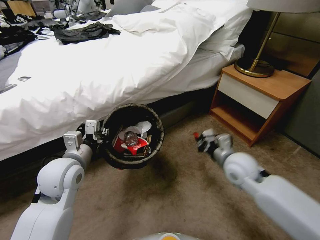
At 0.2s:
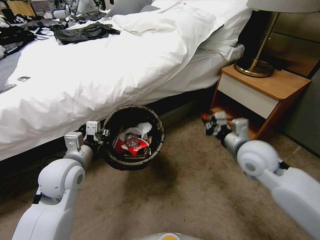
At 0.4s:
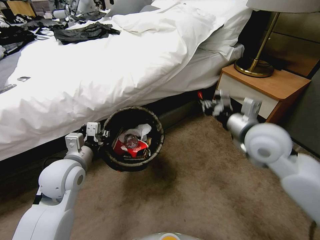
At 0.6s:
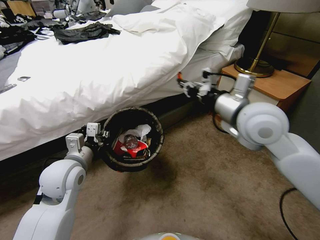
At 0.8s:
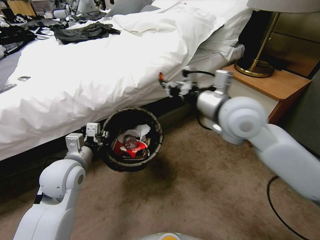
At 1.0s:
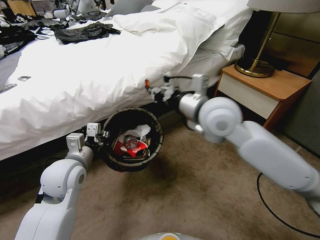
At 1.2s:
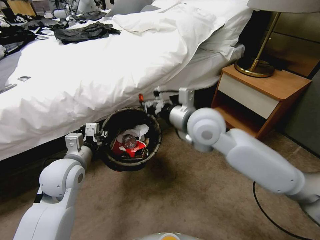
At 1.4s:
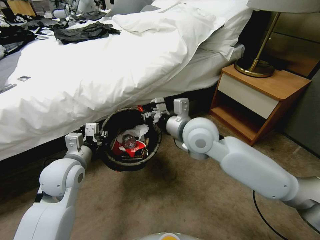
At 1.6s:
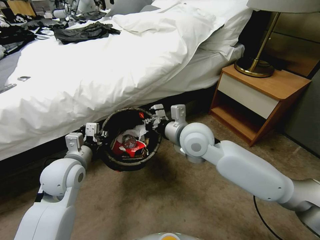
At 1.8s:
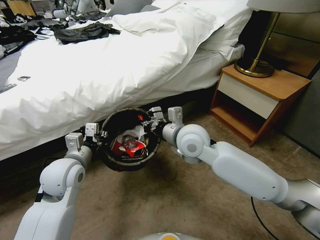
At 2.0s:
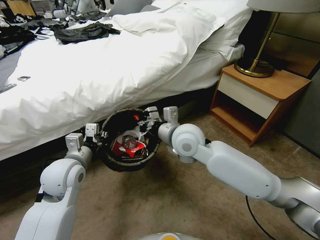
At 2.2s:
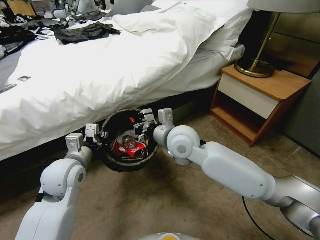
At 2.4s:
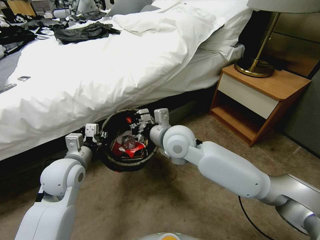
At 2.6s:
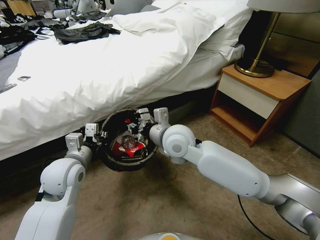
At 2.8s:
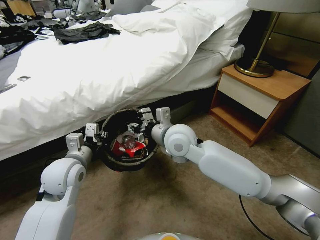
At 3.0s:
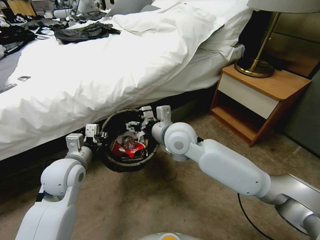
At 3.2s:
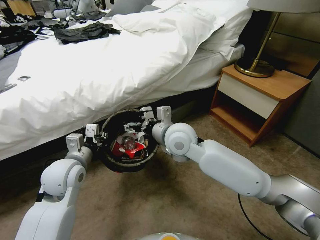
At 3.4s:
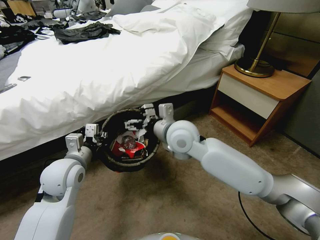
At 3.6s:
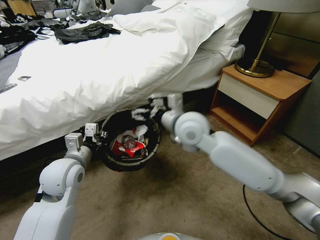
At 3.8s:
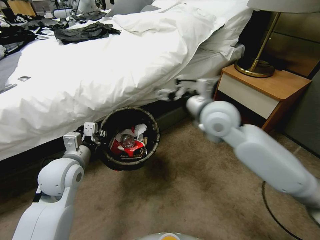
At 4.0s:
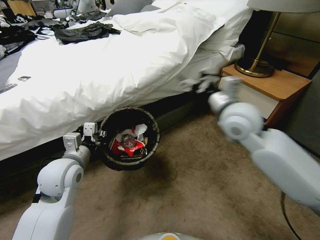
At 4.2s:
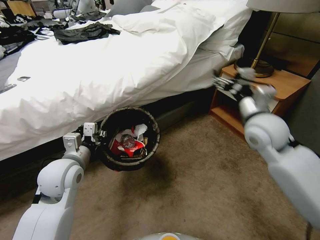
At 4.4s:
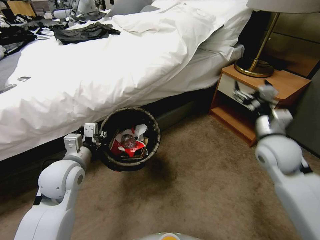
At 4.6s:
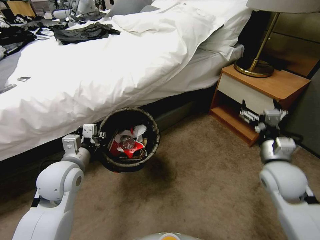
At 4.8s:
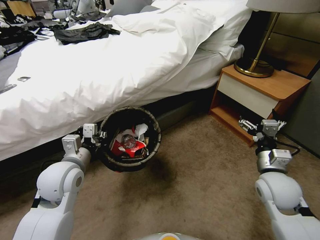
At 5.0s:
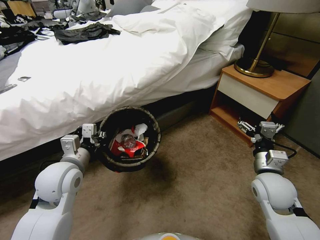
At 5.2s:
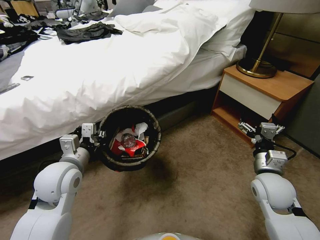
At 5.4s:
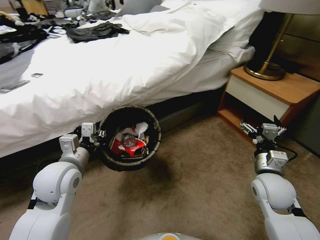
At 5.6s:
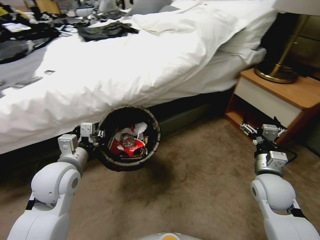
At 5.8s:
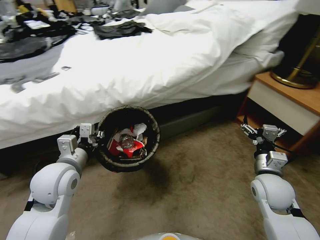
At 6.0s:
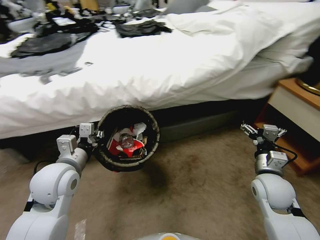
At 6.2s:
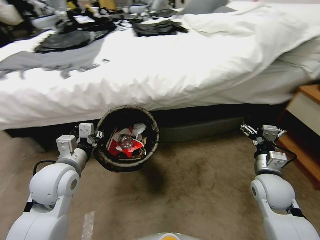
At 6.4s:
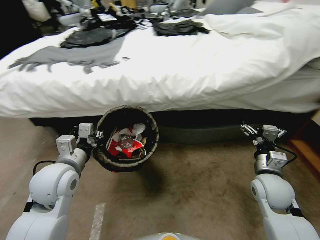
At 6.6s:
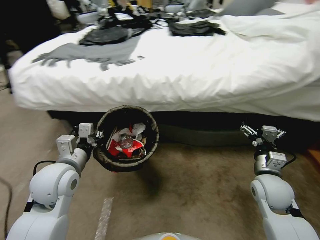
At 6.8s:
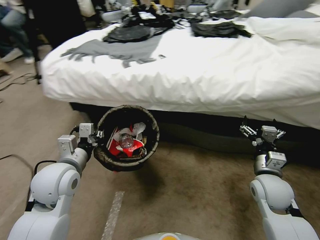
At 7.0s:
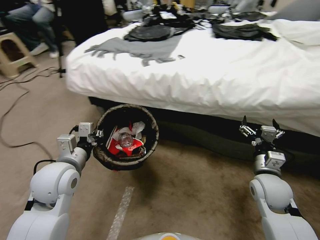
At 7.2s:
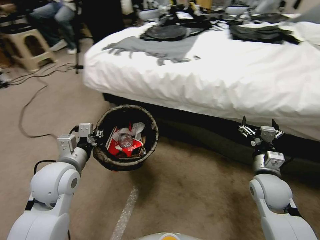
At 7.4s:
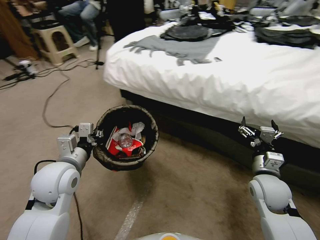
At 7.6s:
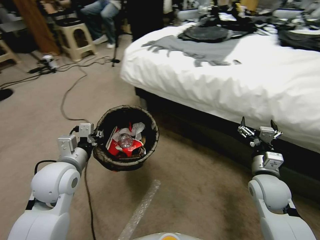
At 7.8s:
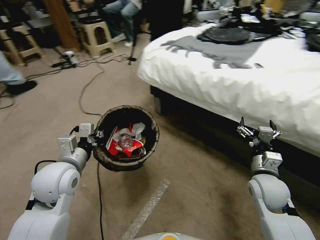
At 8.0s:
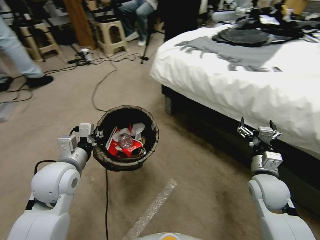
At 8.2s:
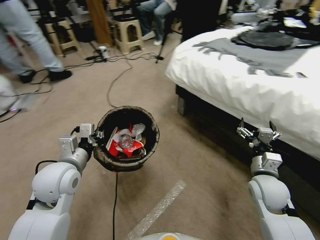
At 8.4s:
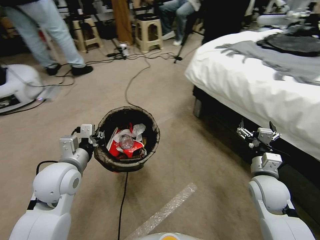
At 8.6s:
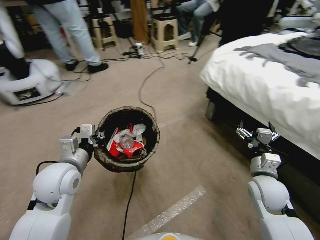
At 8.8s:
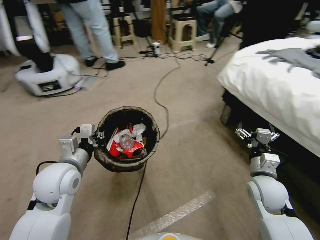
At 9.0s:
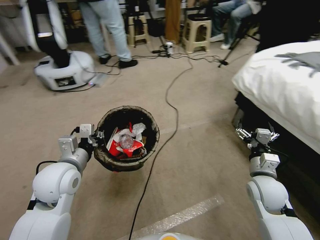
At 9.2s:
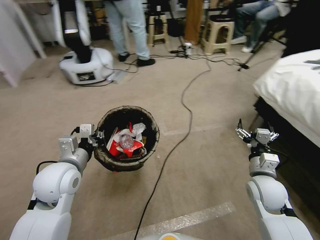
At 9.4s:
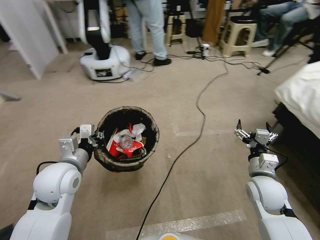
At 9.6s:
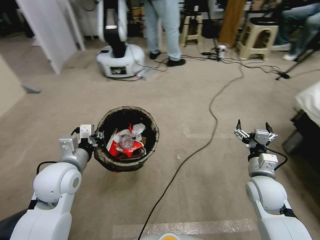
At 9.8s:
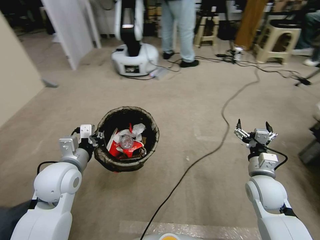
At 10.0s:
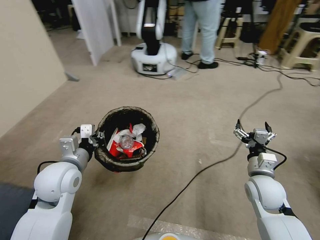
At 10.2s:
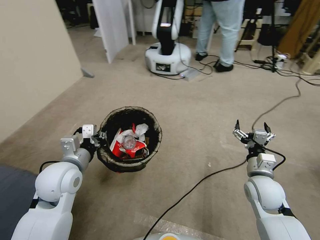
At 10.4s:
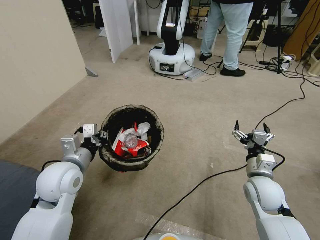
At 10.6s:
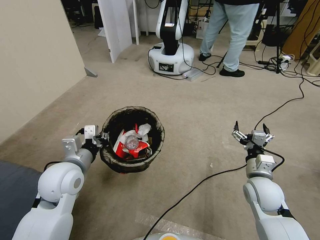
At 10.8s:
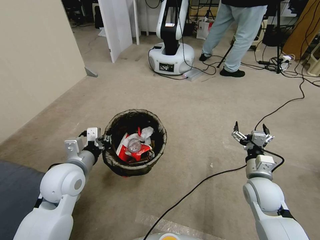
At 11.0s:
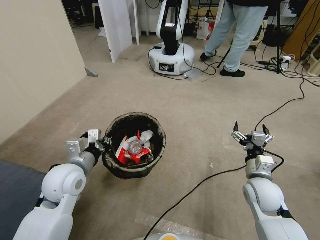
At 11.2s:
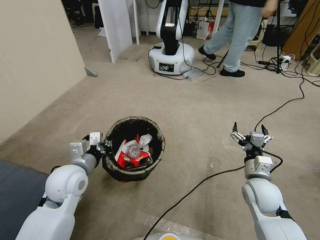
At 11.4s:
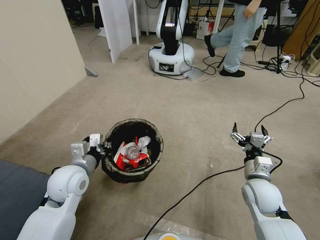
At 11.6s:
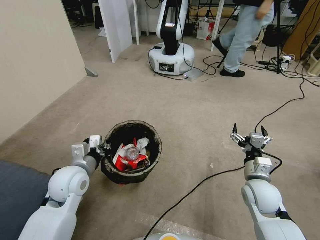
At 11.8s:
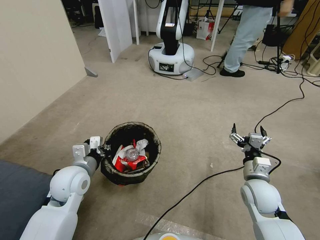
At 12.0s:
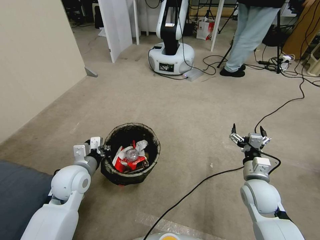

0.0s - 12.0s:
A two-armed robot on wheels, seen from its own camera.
Task of the whole recording: Pick up the trash bin, then pick up the garbage from the floor and place it into the trash bin.
0.0s - 1.6s: The right gripper travels to the left and upward by roughly 20 cm.
1.6s - 3.0s: The right gripper opens up.
3.0s - 4.4s: The right gripper shifts approximately 30 cm to the right, and opens up.
4.4s - 6.0s: The right gripper heads downward and backward, covering roughly 10 cm.
10.4s - 12.0s: The left gripper travels downward by some 5 cm.

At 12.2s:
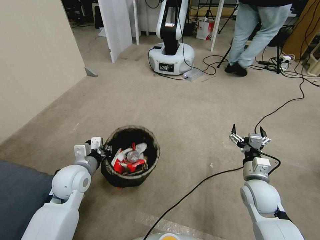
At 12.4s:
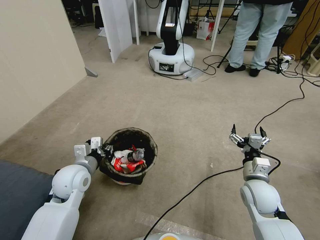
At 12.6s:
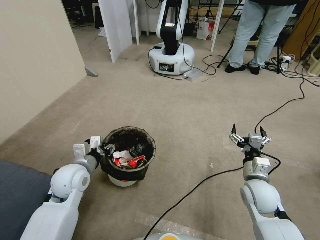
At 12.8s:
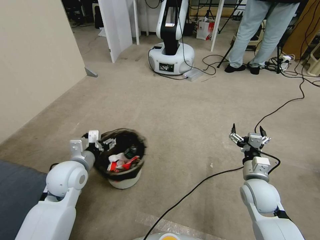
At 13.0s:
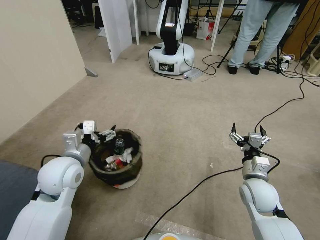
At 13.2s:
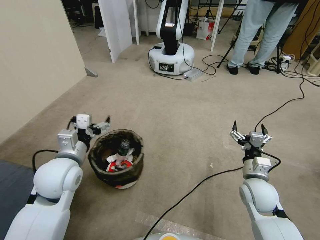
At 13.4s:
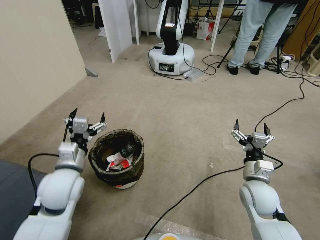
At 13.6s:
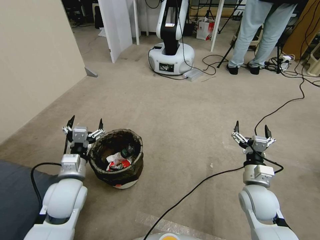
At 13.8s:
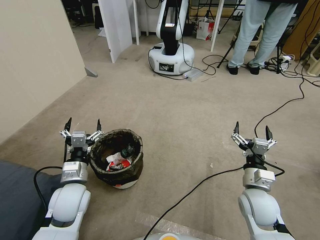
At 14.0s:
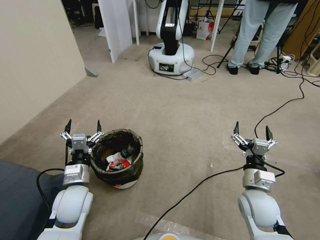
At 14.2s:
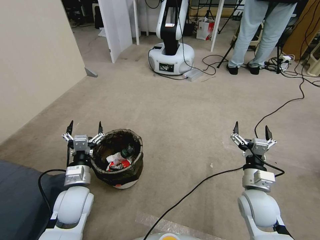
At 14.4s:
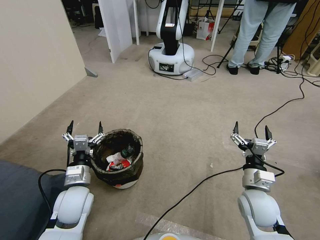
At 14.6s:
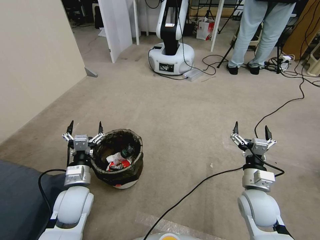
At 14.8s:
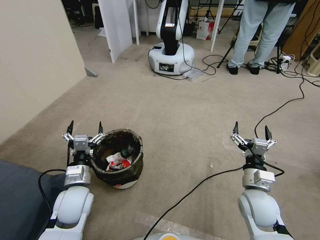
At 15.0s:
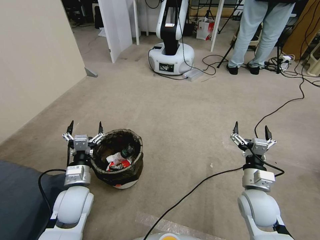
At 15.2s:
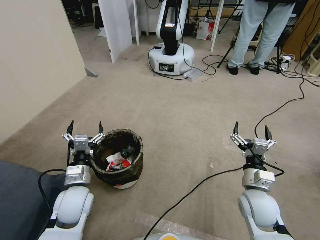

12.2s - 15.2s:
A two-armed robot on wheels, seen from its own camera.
Task of the whole recording: Pick up the trash bin, then pick up the garbage from the floor and place it into the trash bin.
12.2s - 13.8s: The left gripper moves roughly 5 cm upward and comes back, and opens up.
13.8s - 15.2s: The grippers make only small movements.

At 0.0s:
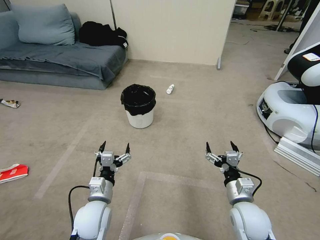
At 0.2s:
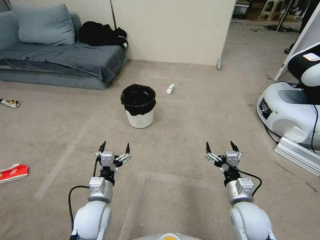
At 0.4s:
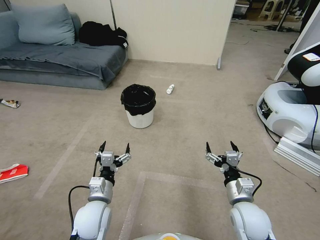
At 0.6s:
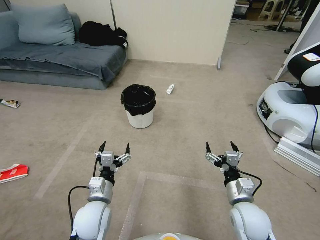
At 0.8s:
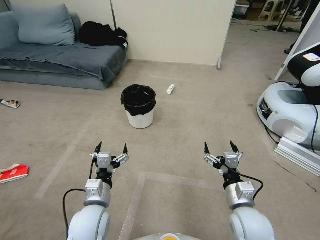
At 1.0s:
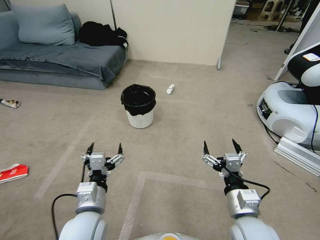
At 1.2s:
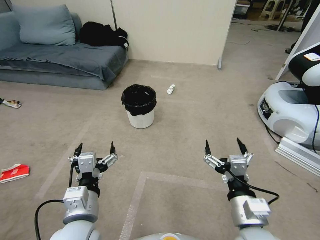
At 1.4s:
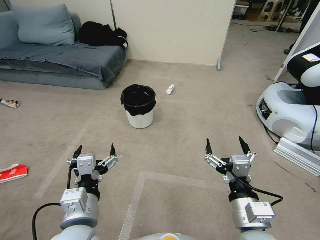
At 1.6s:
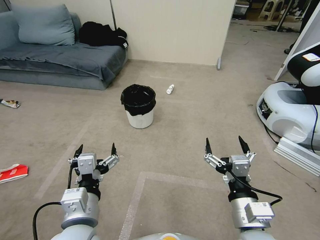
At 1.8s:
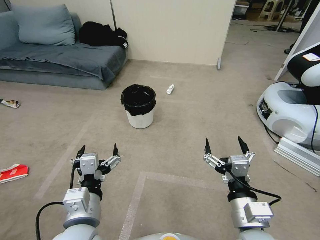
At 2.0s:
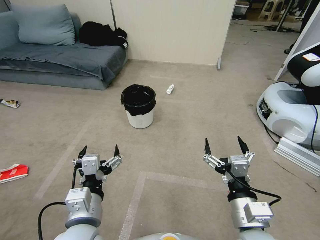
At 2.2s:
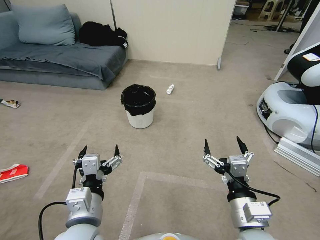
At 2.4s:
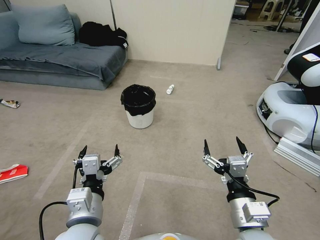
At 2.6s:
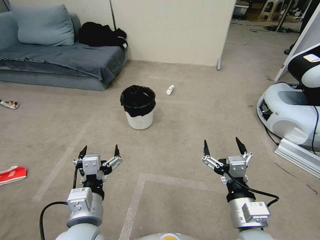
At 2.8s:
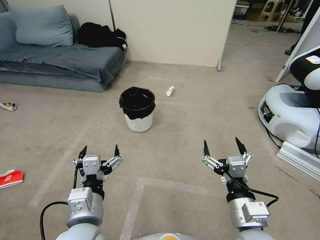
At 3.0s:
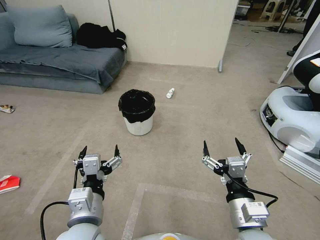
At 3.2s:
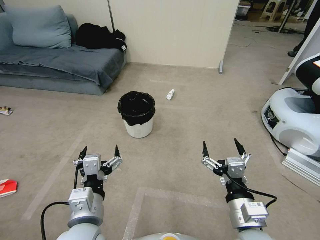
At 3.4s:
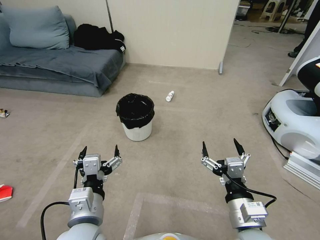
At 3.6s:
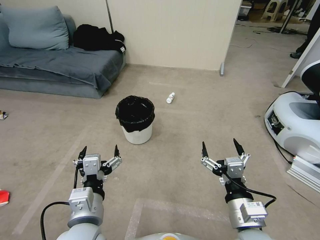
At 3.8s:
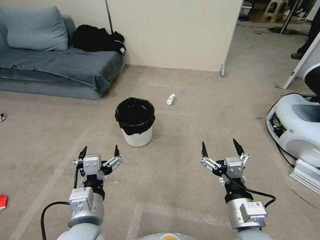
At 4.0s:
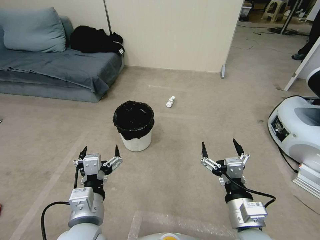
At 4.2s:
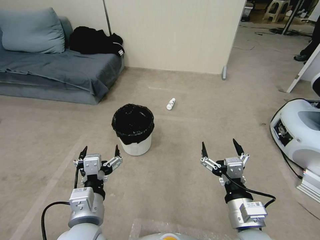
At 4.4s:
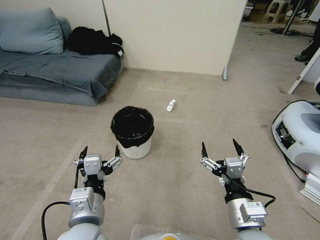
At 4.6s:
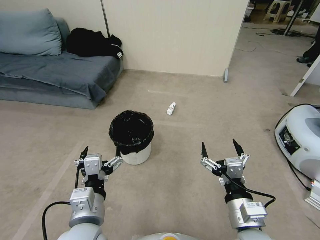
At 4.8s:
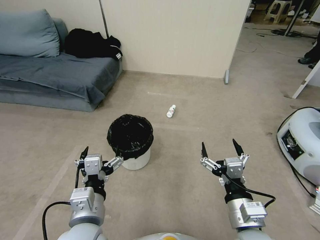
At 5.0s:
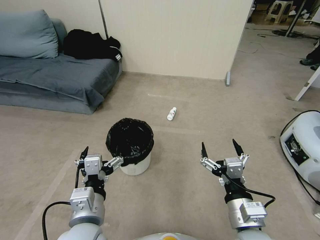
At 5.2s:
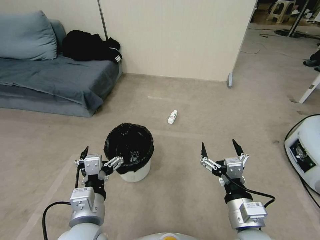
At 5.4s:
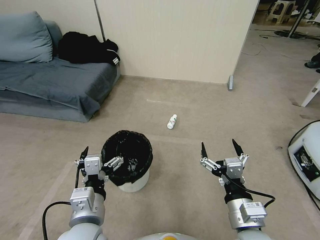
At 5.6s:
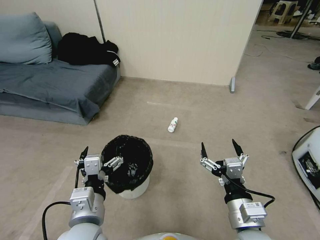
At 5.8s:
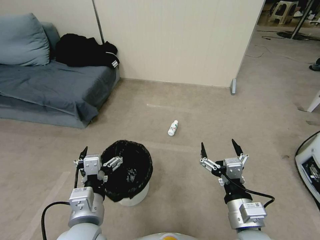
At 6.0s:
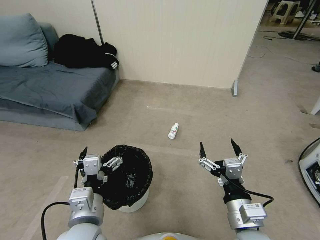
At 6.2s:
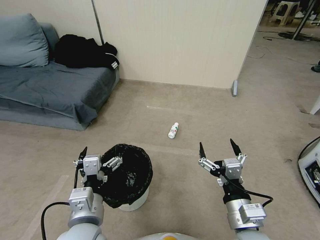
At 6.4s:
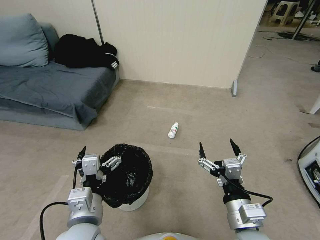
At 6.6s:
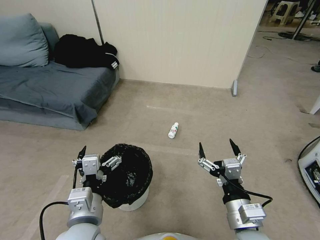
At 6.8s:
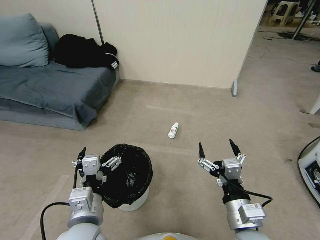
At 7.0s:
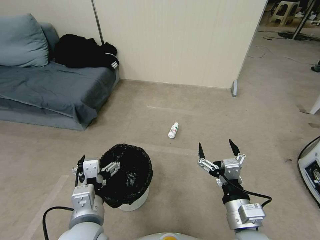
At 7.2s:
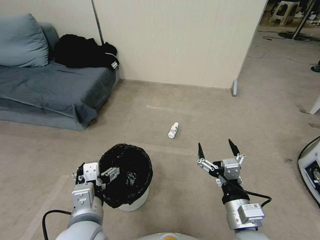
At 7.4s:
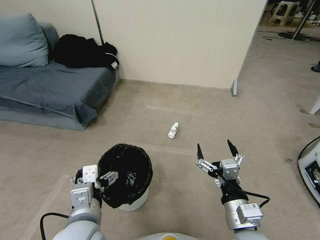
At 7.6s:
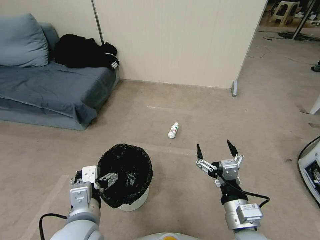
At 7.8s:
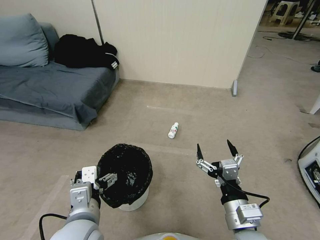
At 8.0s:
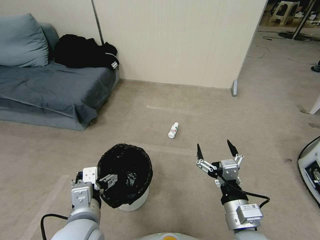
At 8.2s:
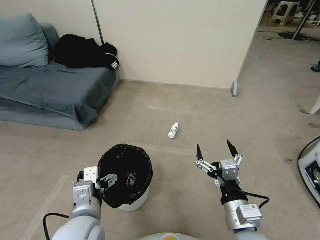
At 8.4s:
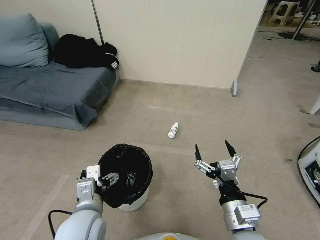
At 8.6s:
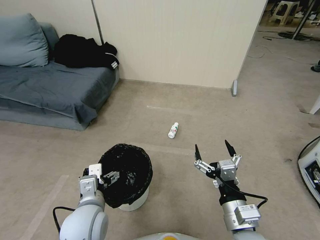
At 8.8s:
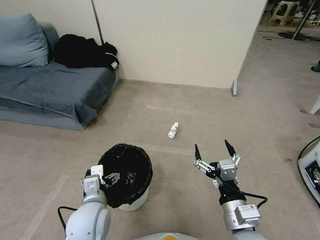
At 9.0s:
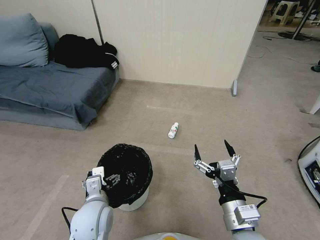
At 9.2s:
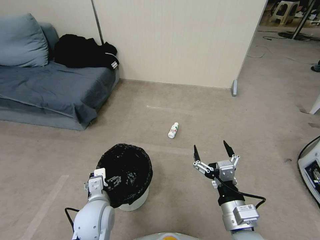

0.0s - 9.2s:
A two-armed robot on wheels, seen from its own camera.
Task of the whole recording: Pick up the trash bin, then pick up the garbage from the floor and place it into the trash bin.
1.6s - 3.0s: There are only small adjustments of the grippers.
7.6s - 9.2s: The left gripper travels downward and forward by approximately 15 cm.
